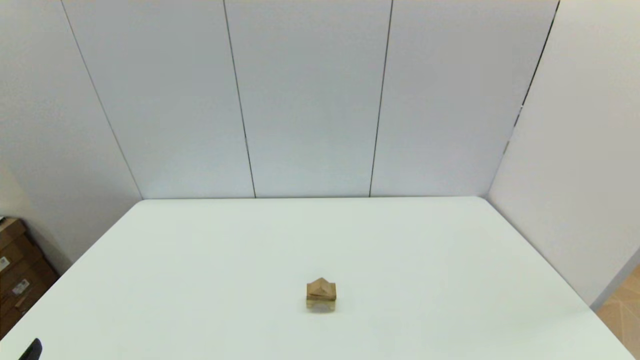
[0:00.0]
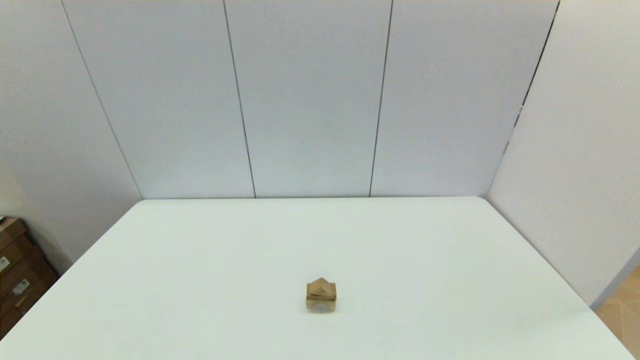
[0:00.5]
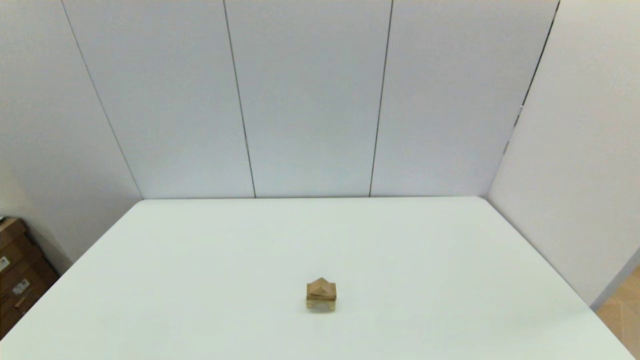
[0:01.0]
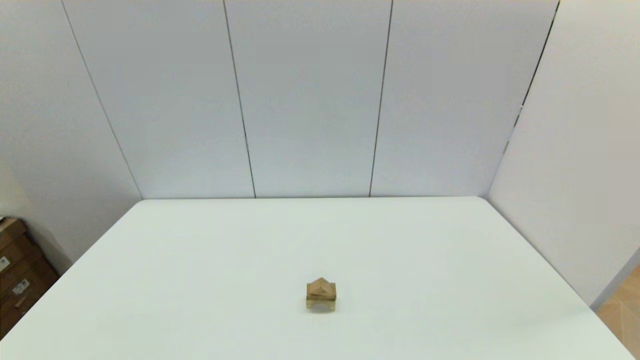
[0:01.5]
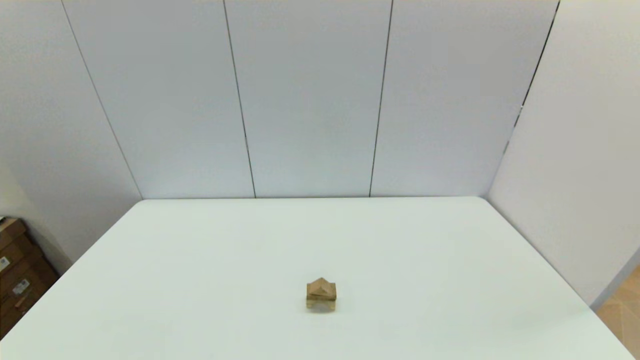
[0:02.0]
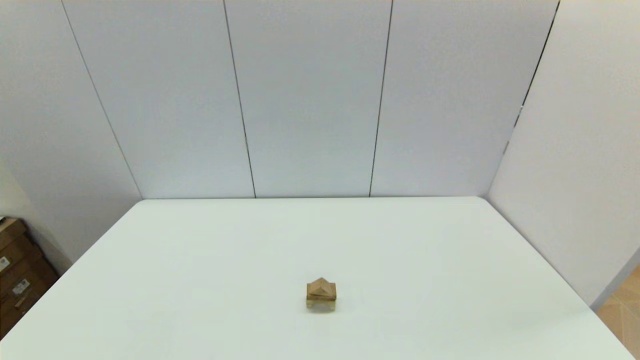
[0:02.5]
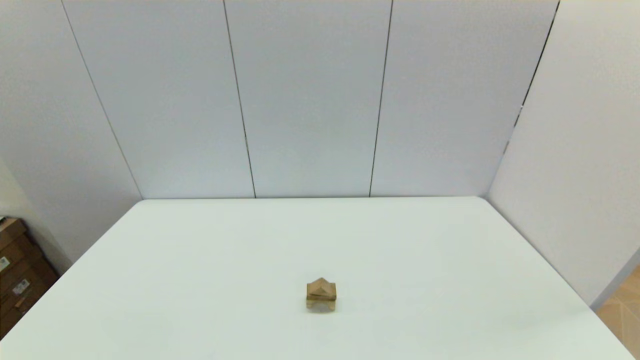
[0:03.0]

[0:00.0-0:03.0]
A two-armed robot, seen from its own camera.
Task of the whole recording: place the arched building blocks in the center of the table, set up the rectangular building blocks, and then set up the triangular building blocks.
0:01.5 to 0:03.0: Neither gripper changes place.
